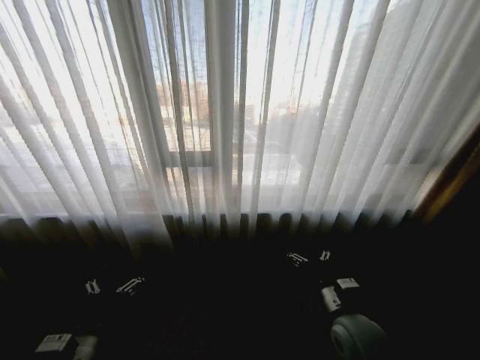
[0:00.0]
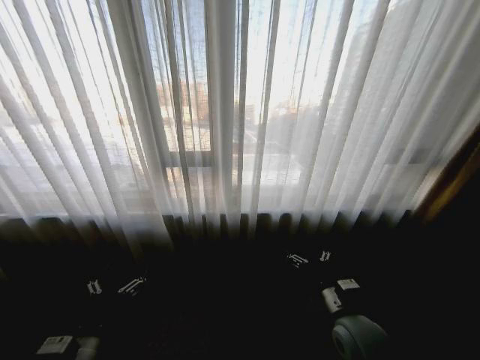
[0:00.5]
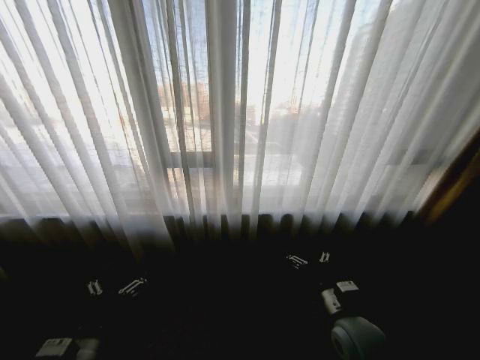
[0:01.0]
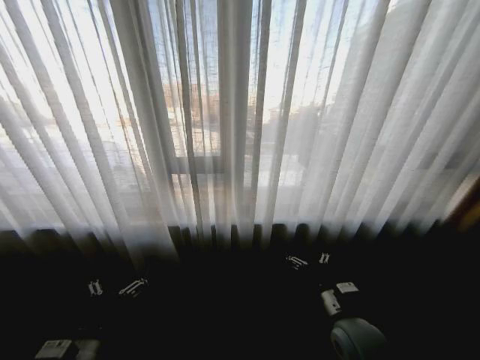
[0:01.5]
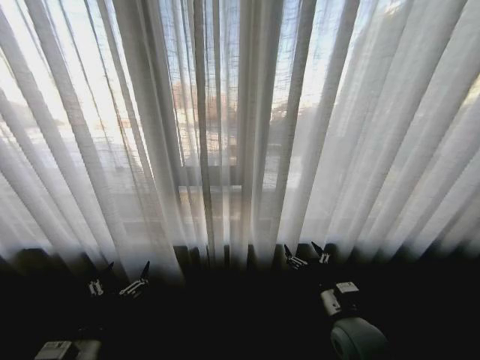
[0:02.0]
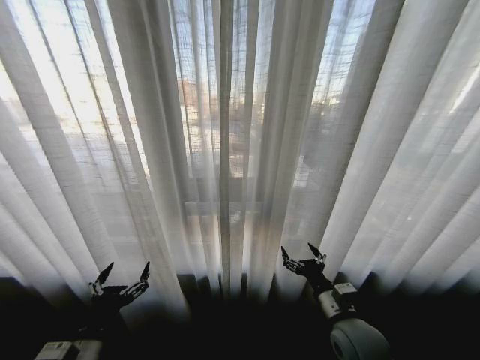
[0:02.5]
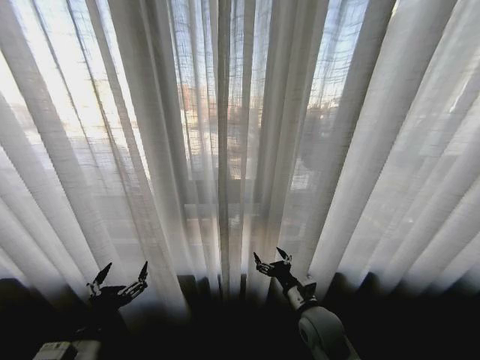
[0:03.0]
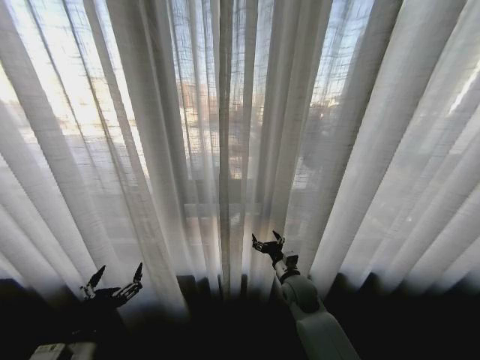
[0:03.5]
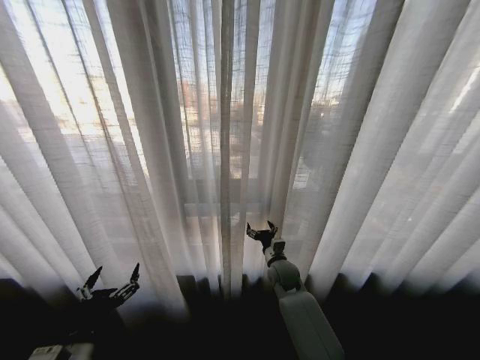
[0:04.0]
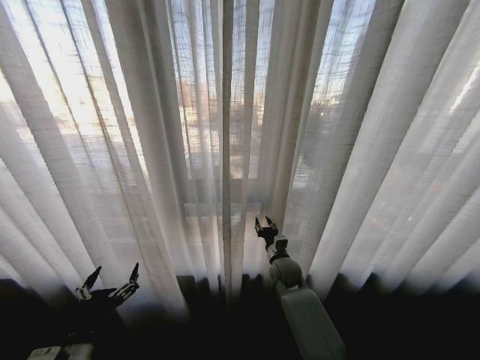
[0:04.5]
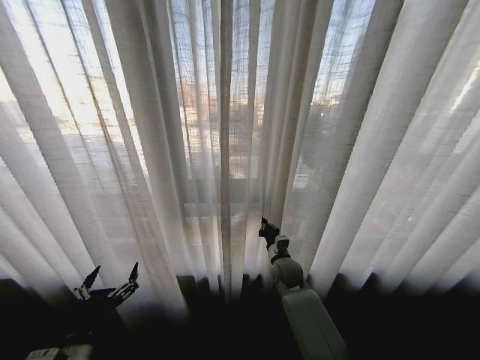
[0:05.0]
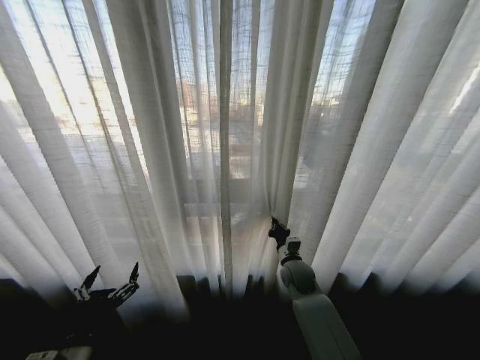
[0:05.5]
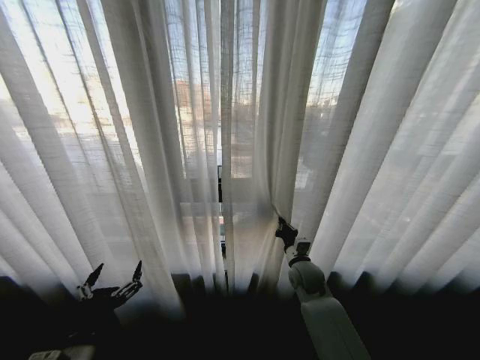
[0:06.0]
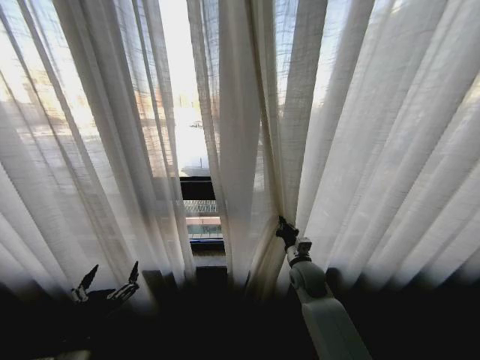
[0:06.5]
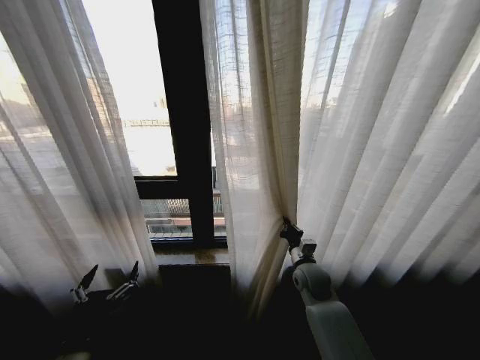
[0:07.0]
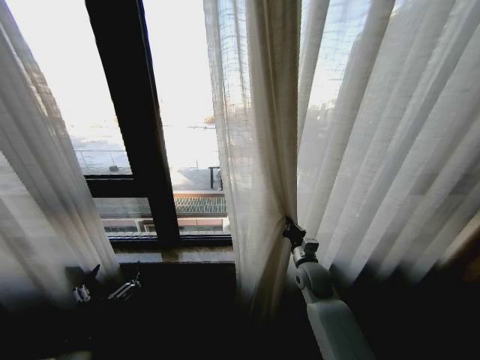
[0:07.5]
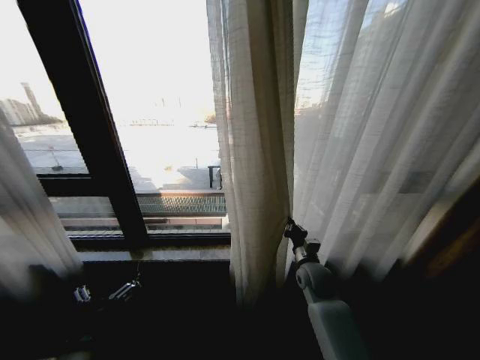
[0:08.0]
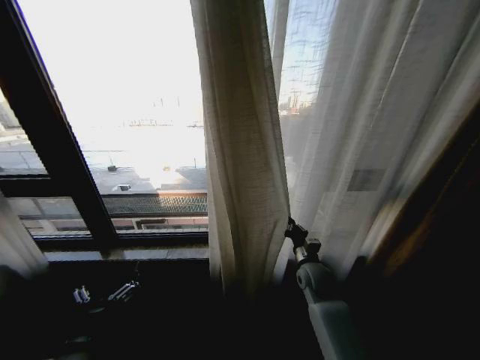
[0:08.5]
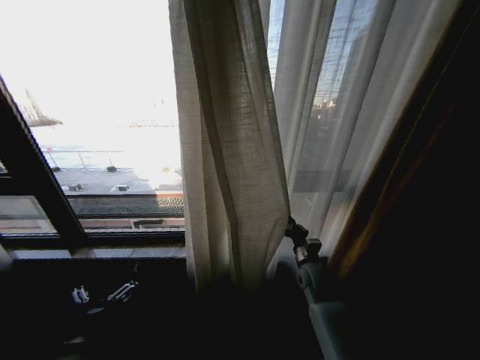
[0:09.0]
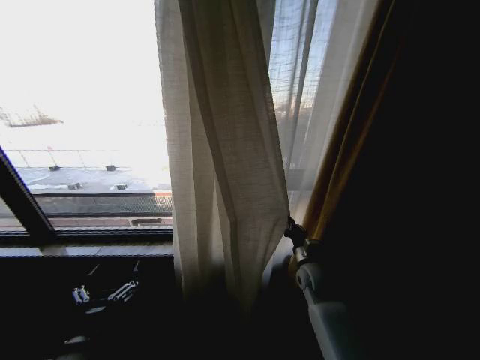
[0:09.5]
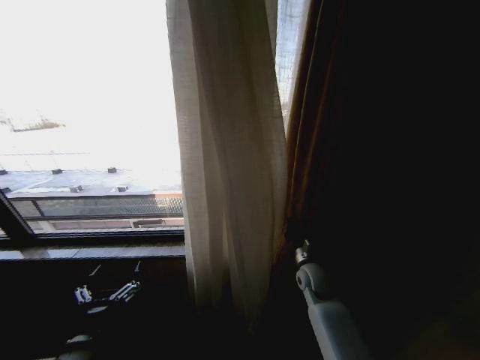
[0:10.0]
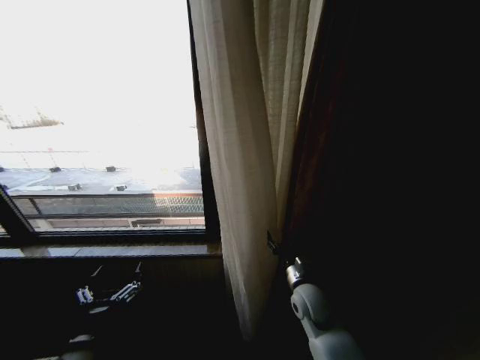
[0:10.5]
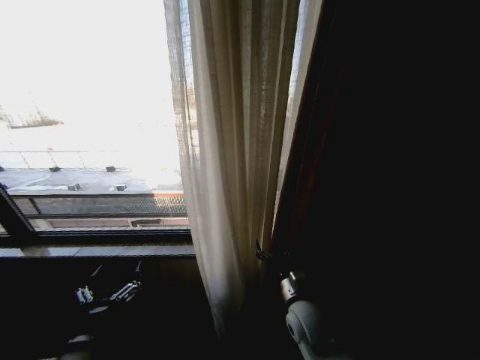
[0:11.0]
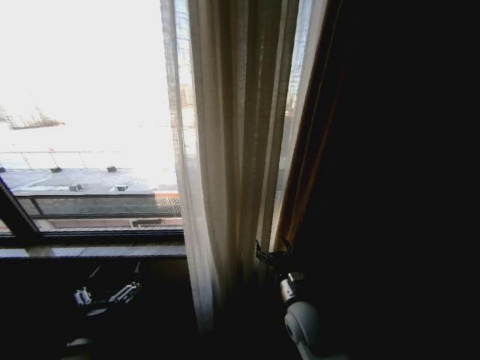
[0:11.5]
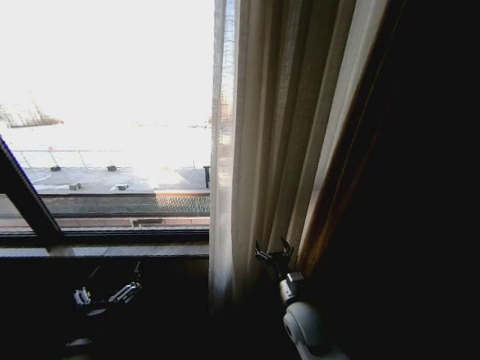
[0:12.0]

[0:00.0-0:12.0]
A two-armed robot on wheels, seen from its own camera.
Task of the whole recording: Open the curtains by pulling them apart, changing their state from closed to fully open.
0:02.0 to 0:04.0: The right gripper moves forward and to the left, approximately 20 cm.
0:04.0 to 0:06.0: The right gripper goes some 5 cm to the right, and closes its fingers.
0:10.0 to 0:12.0: The right gripper moves backward and to the left, about 15 cm, and opens.

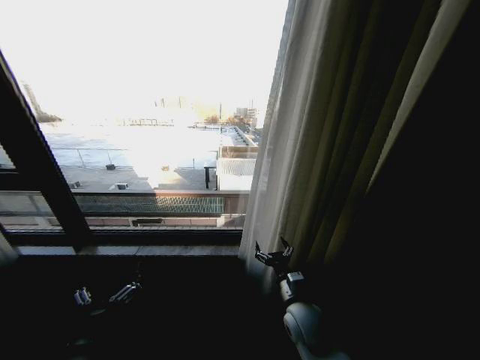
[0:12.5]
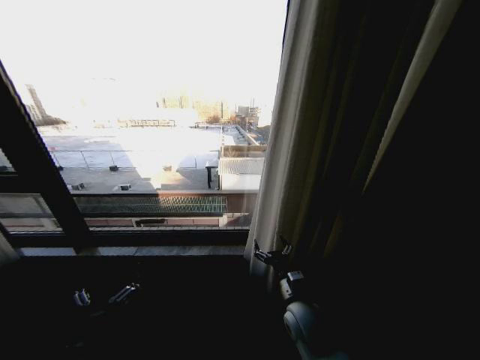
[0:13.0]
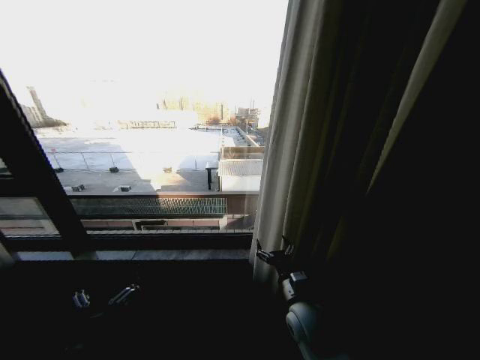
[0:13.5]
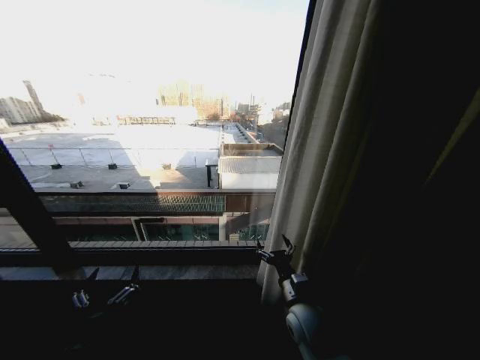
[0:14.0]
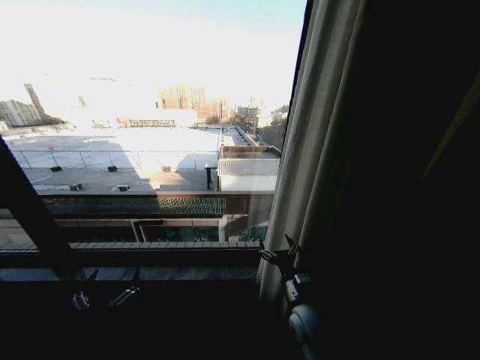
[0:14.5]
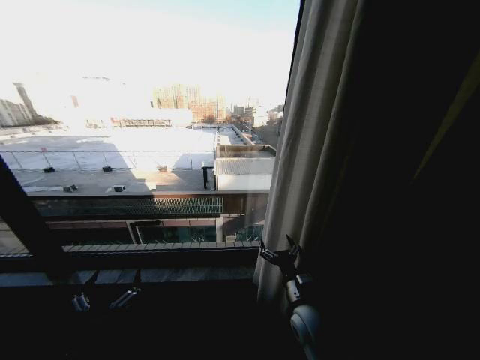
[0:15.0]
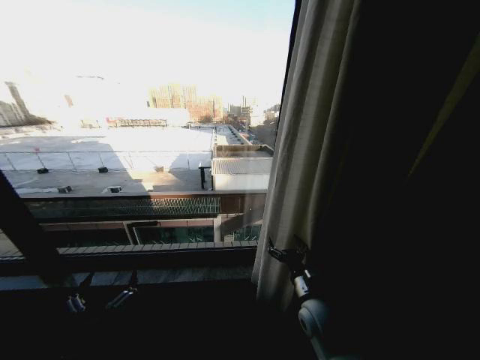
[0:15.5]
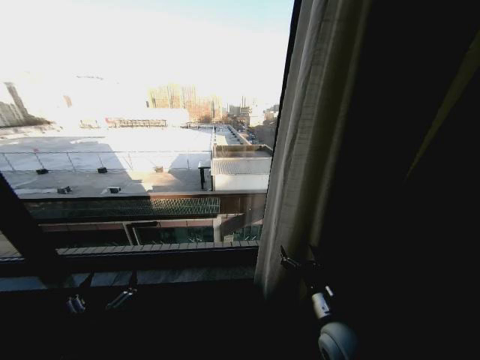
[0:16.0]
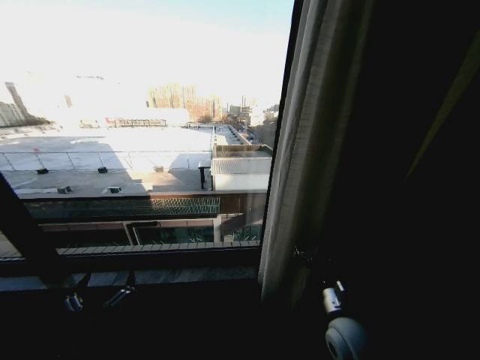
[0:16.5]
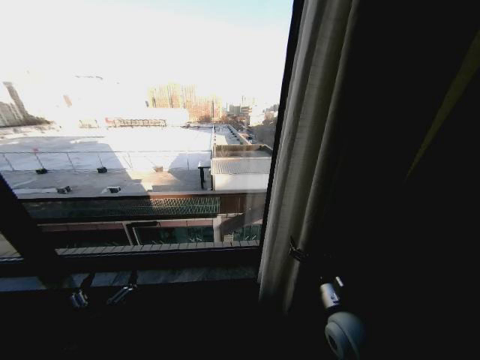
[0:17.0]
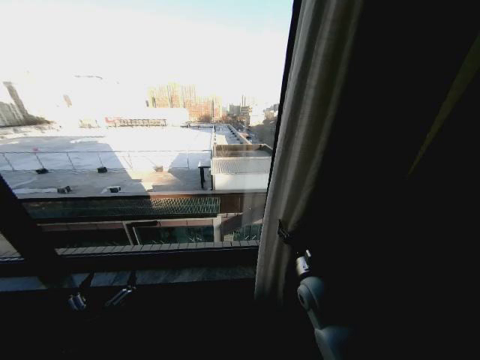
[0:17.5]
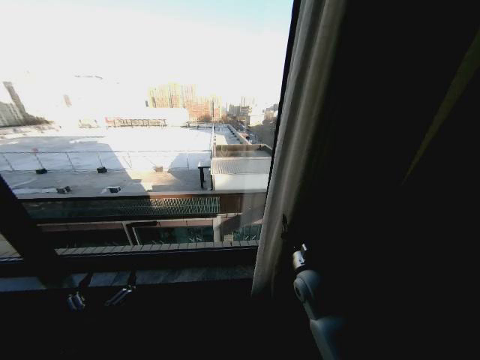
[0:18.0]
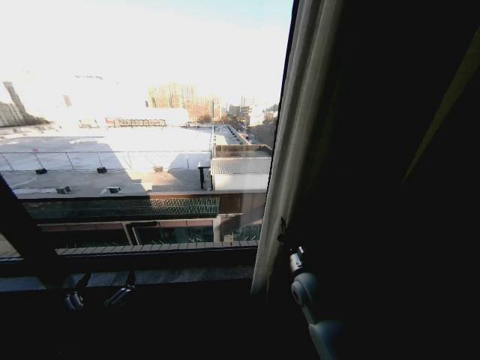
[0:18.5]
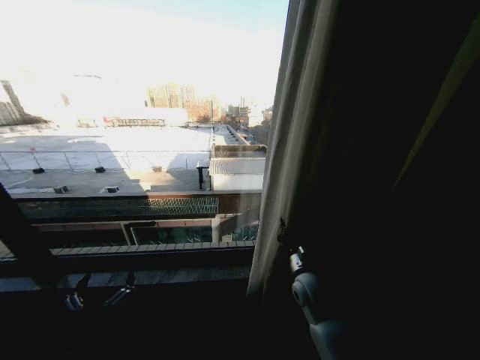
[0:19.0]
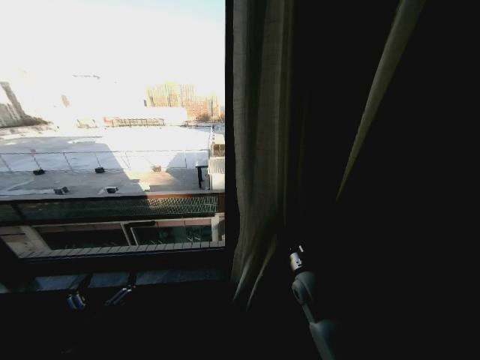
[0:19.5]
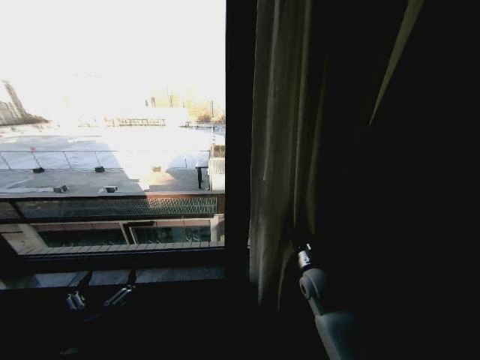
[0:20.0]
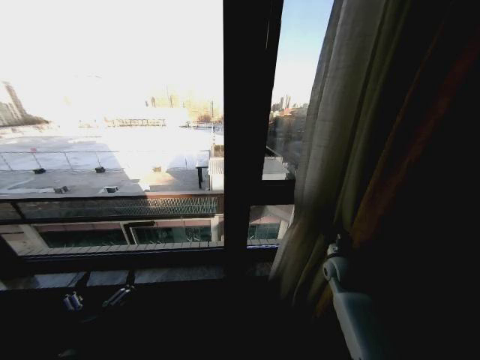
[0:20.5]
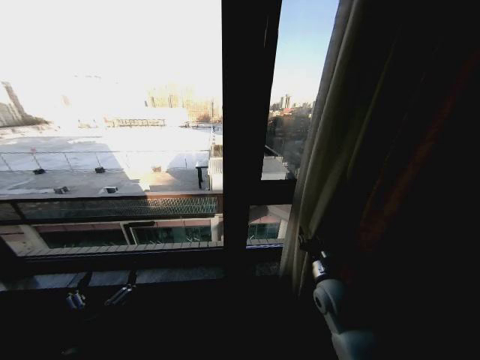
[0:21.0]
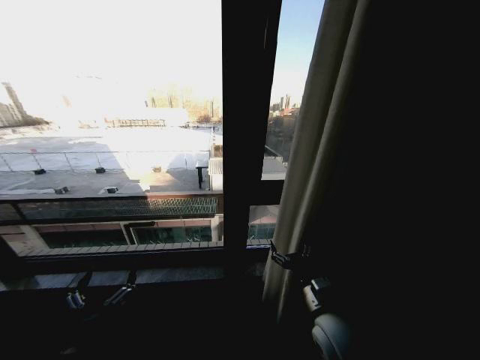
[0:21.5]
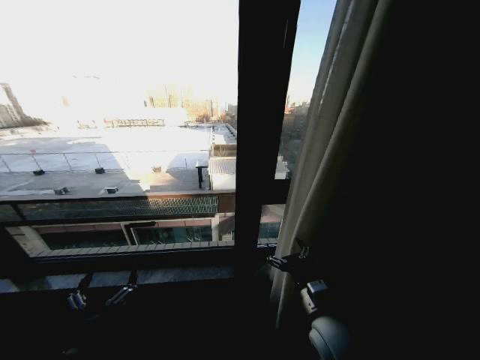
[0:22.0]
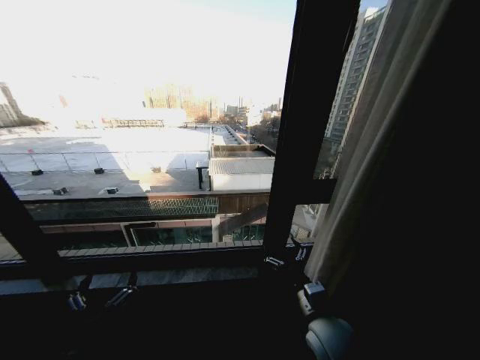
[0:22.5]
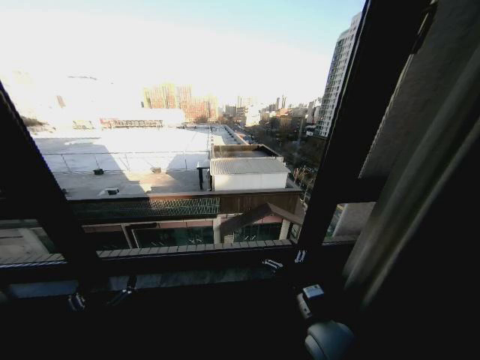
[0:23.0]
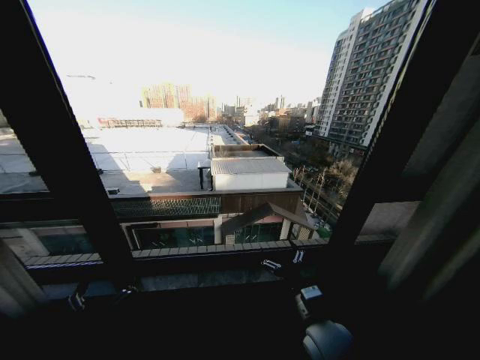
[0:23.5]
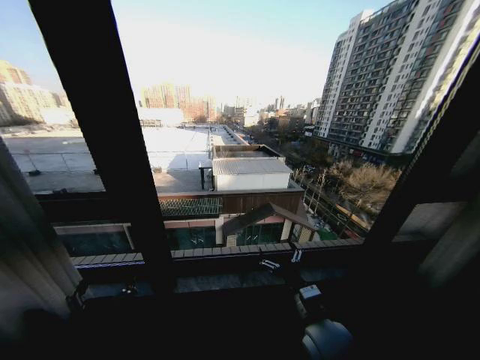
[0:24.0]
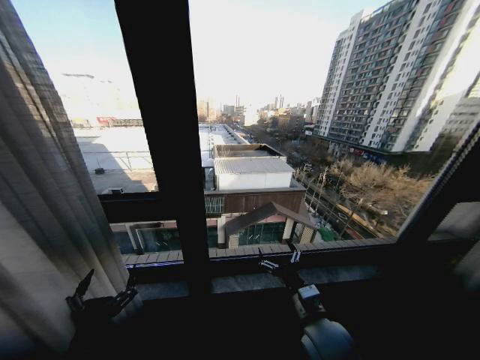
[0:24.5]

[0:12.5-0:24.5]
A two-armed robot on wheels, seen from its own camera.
Task of the whole recording: Open the curtains by pulling them apart, changing their state from closed to fully open.
0:14.5 to 0:16.5: The right gripper heads to the right, covering some 5 cm.
0:16.5 to 0:18.5: The right gripper travels forward by approximately 10 cm, and closes.
0:18.5 to 0:20.5: The right gripper shifts approximately 15 cm to the right and forward.
0:20.5 to 0:22.5: The right gripper is displaced backward and to the left by some 25 cm, and opens its fingers.

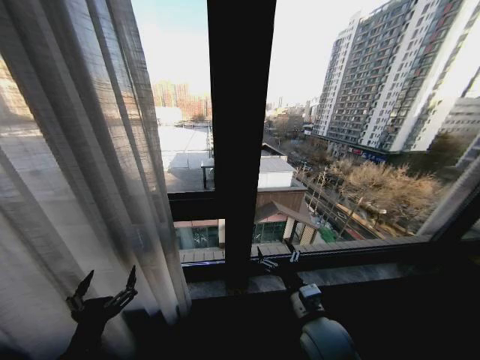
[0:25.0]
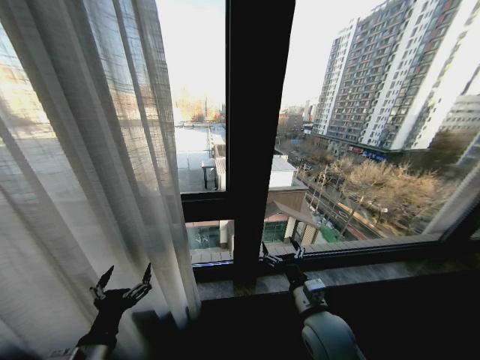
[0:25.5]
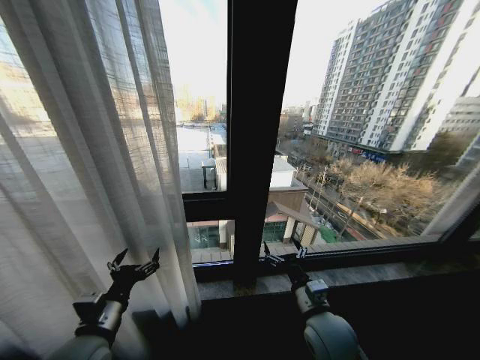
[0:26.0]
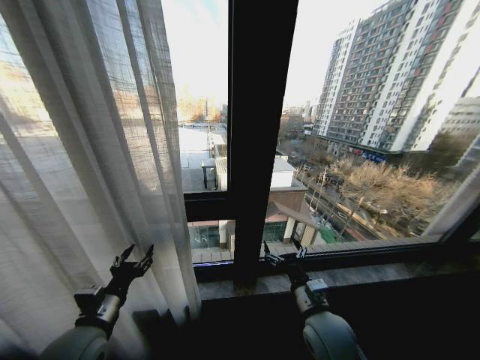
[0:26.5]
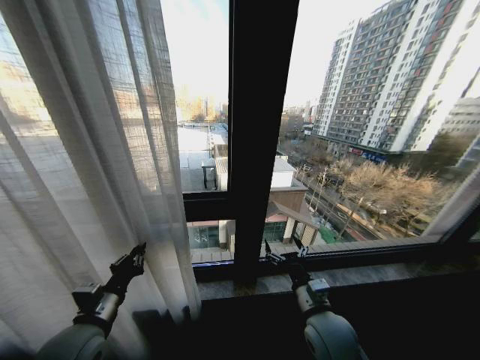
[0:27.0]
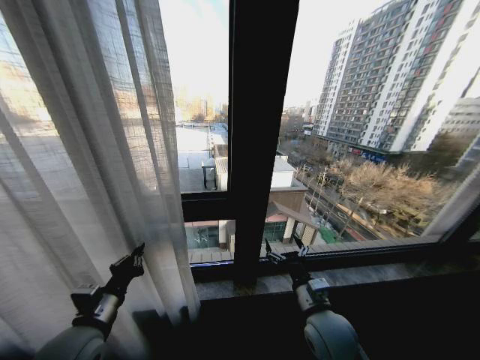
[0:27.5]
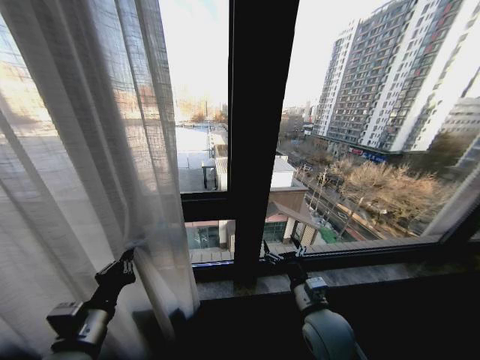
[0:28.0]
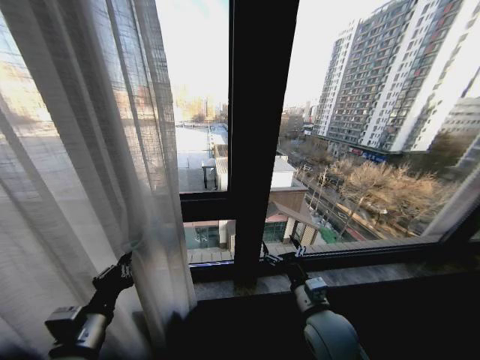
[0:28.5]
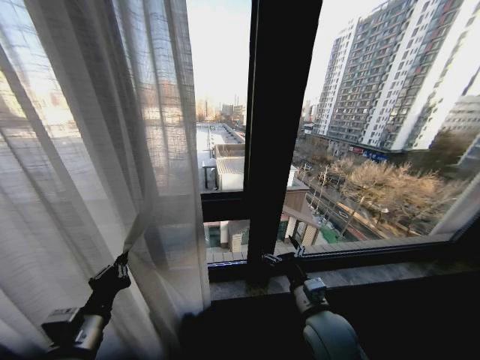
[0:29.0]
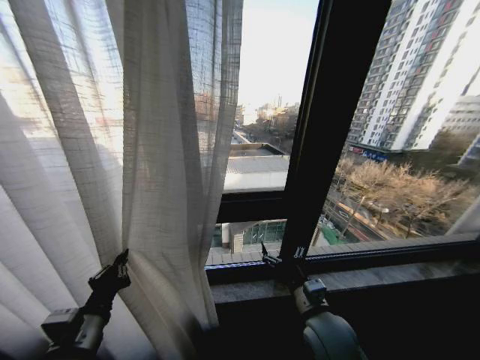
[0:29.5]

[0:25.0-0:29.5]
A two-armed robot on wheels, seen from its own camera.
Task of the whole recording: Open the curtains by pulling them apart, changing their state from closed to fully open.
0:25.0 to 0:27.0: The left gripper heads forward, covering about 10 cm, and closes up.
0:27.0 to 0:29.5: The left gripper heads backward, covering approximately 5 cm.
